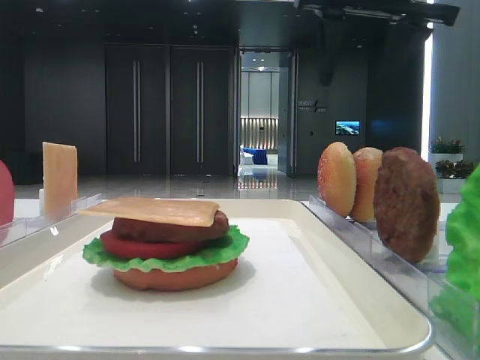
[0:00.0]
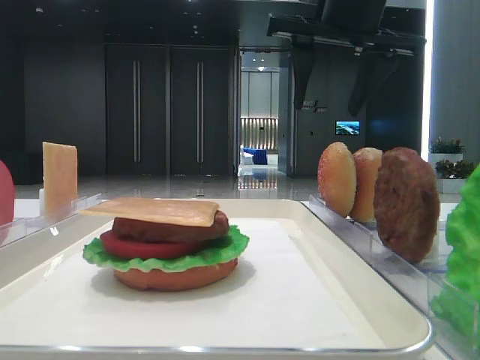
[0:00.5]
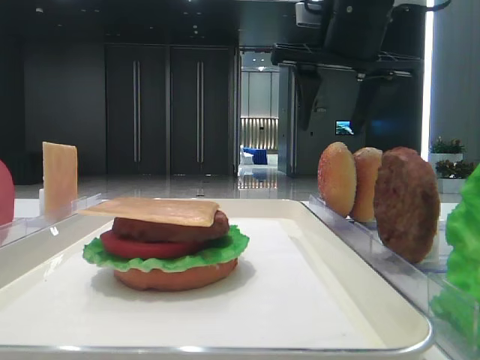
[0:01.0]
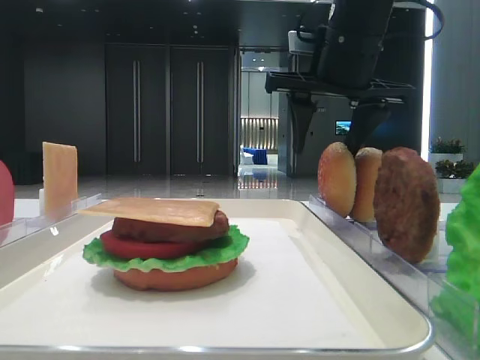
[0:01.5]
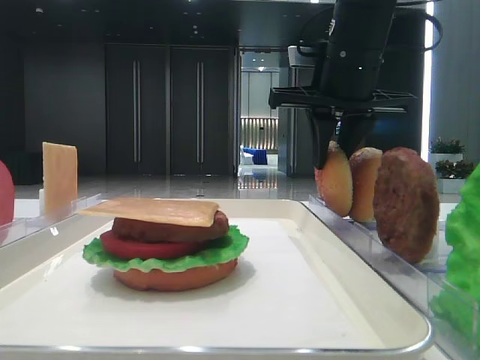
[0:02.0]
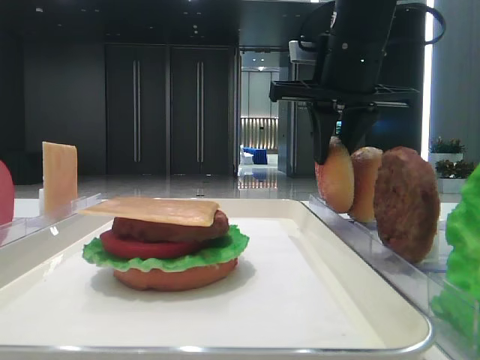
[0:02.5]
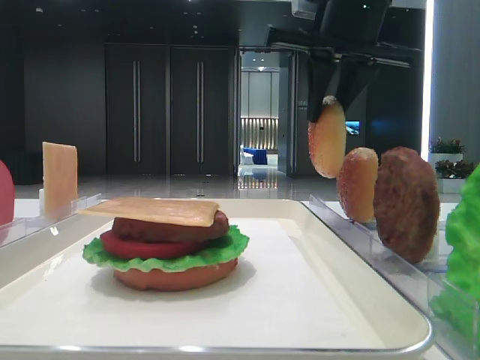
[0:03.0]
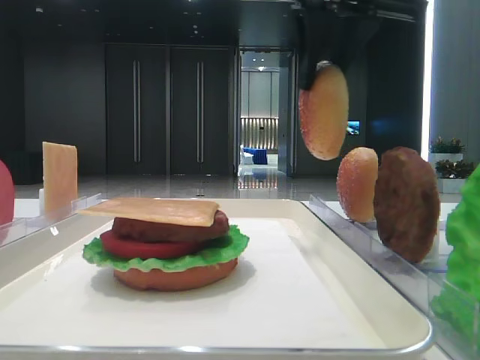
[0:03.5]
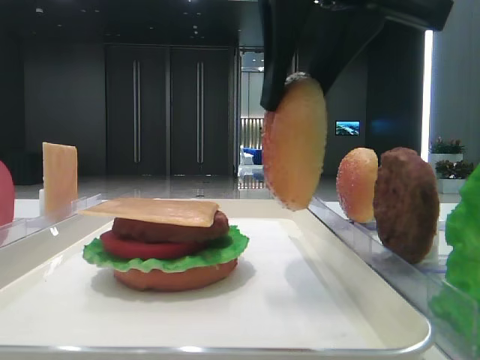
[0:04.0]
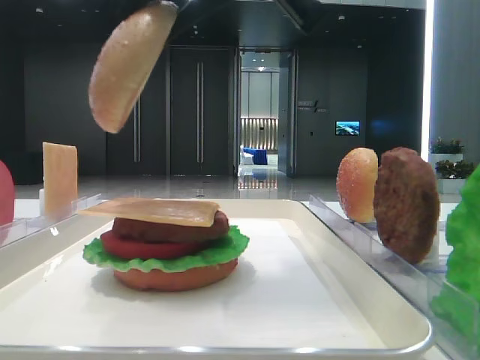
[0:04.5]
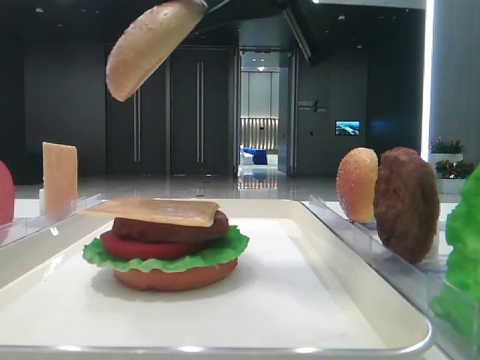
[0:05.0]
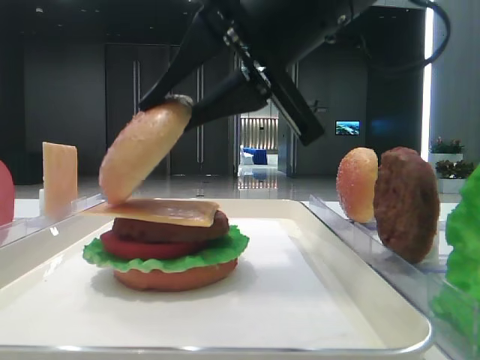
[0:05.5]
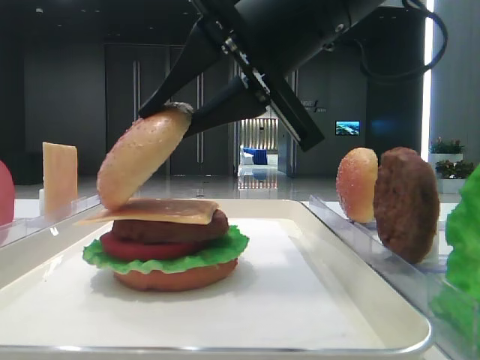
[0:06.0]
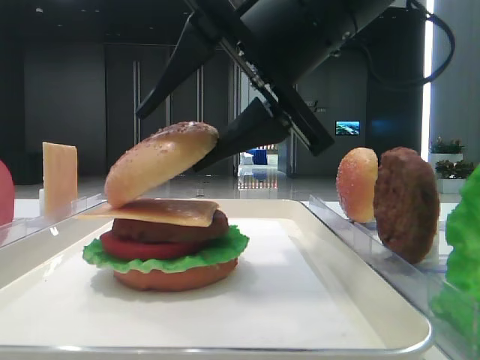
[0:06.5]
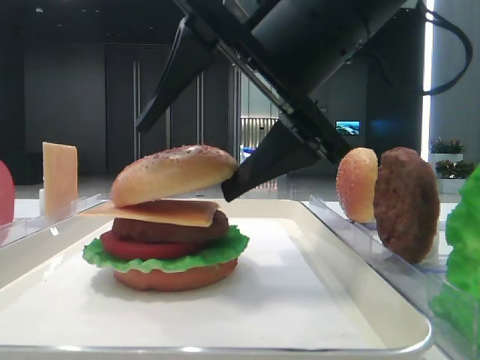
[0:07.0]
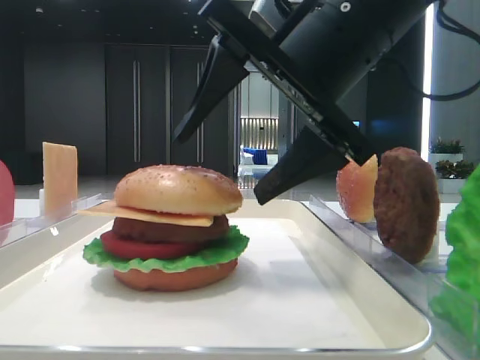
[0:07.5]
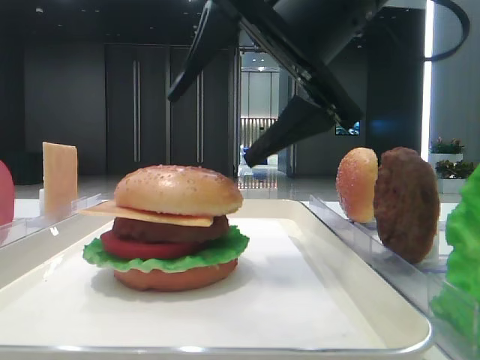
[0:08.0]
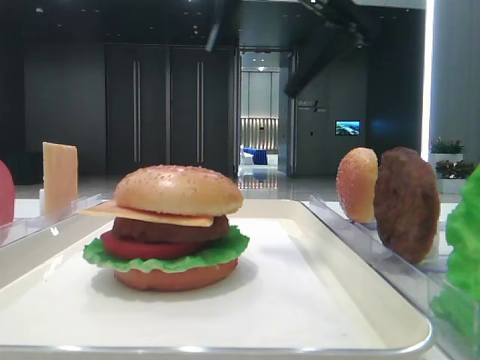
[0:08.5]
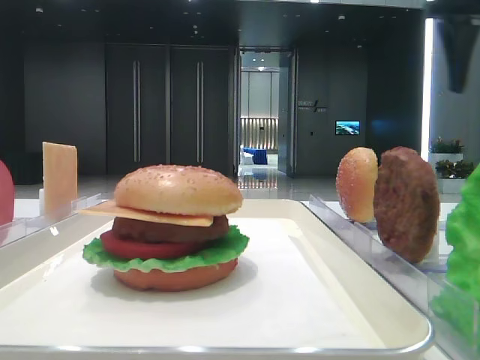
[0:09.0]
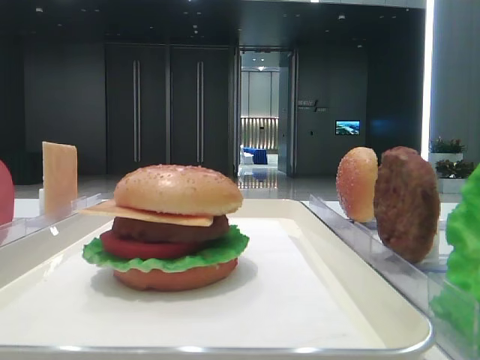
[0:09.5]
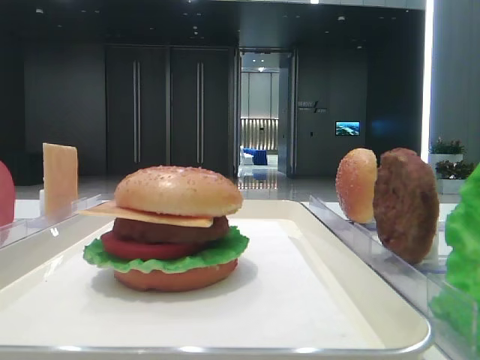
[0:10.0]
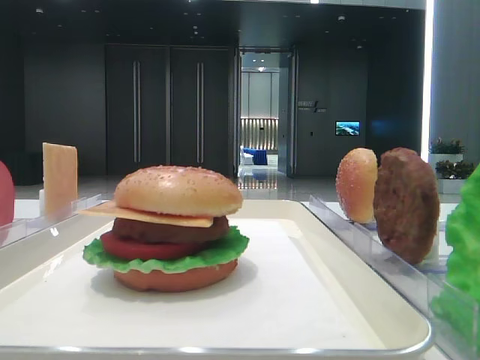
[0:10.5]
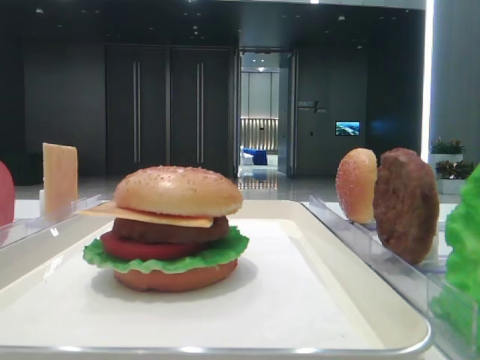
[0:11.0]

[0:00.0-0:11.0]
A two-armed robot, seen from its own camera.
Step, 0:00.0 to 0:02.0: Pick up the top bread slice with the right hand.
Step, 0:02.5 to 0:07.0: Place the top bread slice on the cheese with the right hand.
0:00.0 to 0:02.0: The right gripper shifts approximately 10 cm downward, and closes its fingers.
0:02.0 to 0:03.5: The right gripper travels upward and backward by about 10 cm.
0:03.5 to 0:05.5: The right gripper shifts approximately 10 cm downward and backward.
0:05.5 to 0:07.5: The right gripper opens.
0:07.5 to 0:09.0: The right gripper travels to the right, upward and forward by approximately 25 cm.
0:09.0 to 0:11.0: The right gripper is displaced backward by about 40 cm.

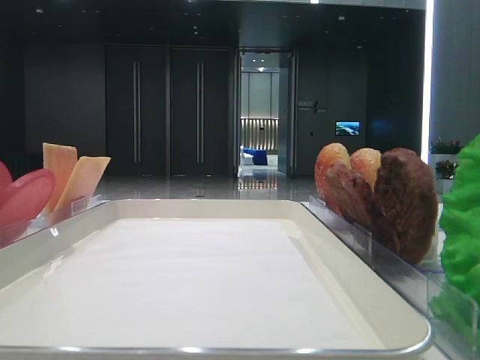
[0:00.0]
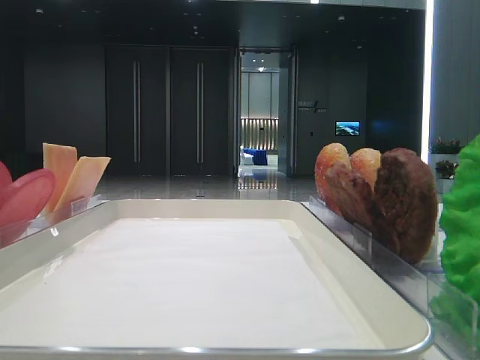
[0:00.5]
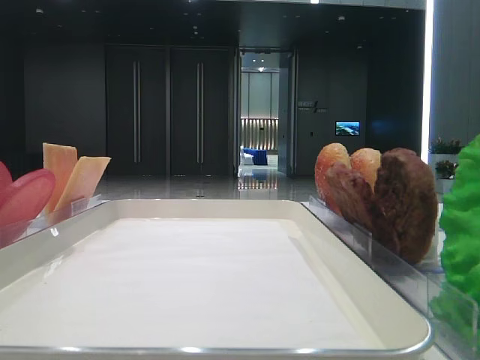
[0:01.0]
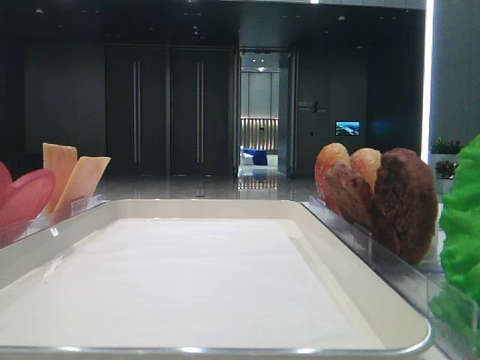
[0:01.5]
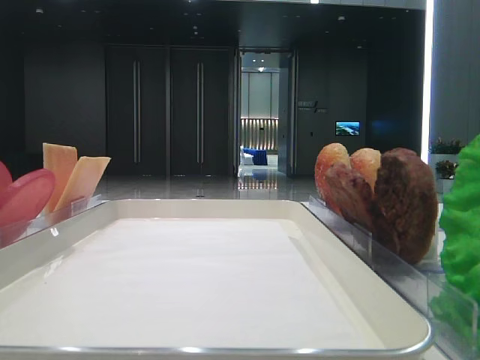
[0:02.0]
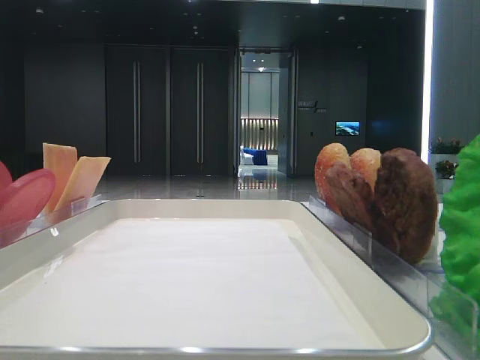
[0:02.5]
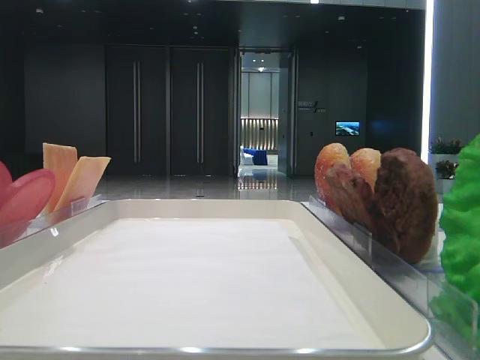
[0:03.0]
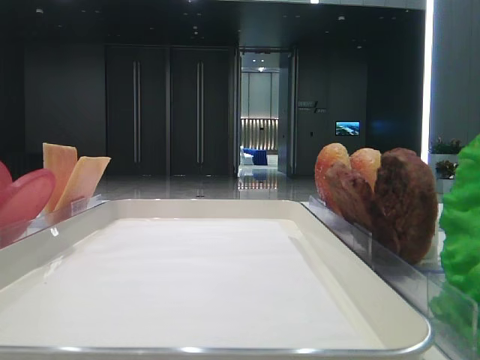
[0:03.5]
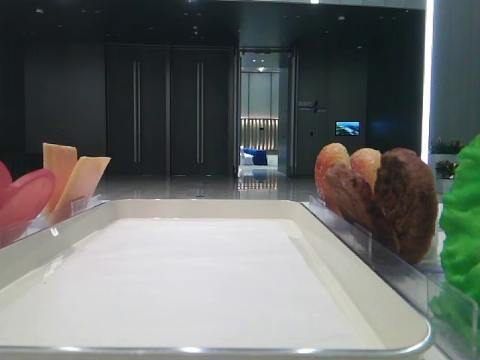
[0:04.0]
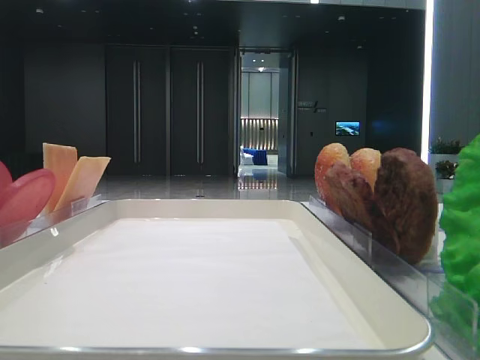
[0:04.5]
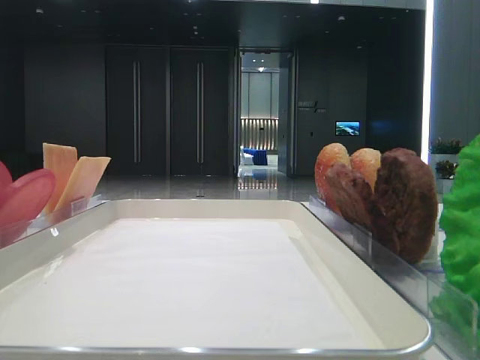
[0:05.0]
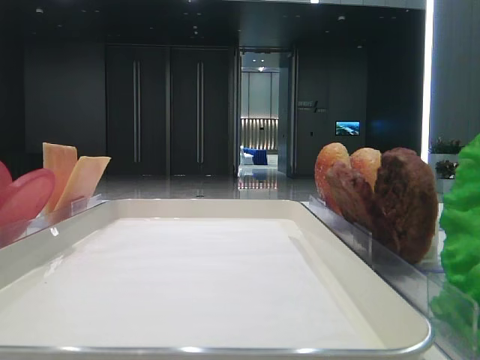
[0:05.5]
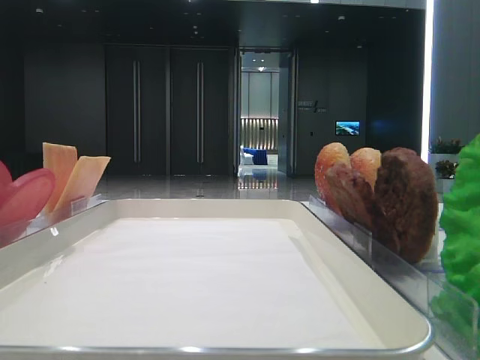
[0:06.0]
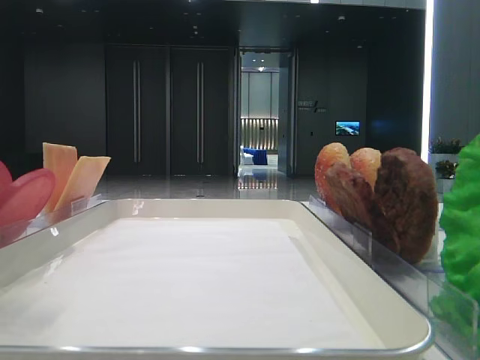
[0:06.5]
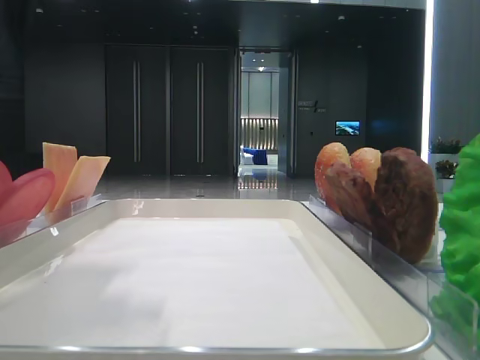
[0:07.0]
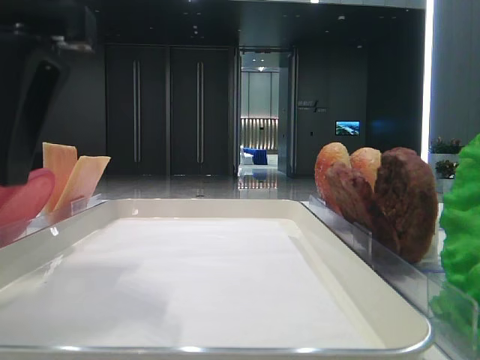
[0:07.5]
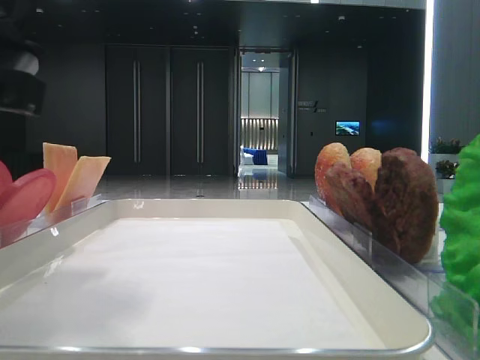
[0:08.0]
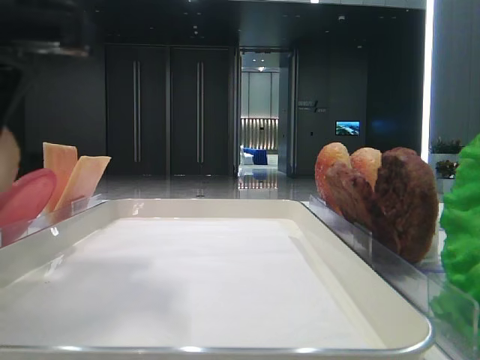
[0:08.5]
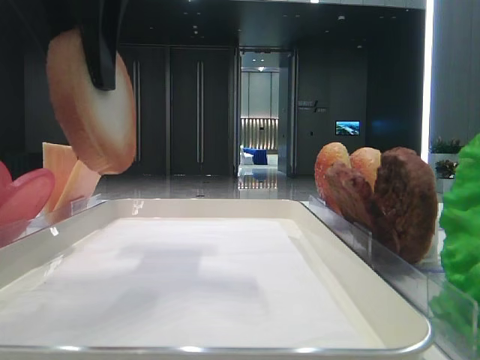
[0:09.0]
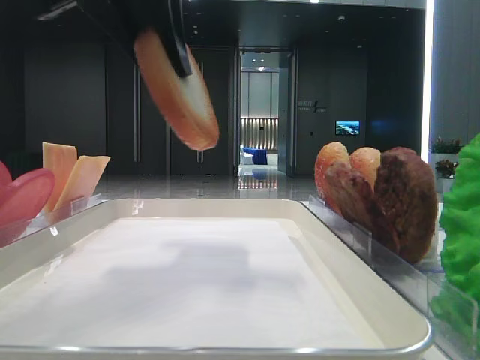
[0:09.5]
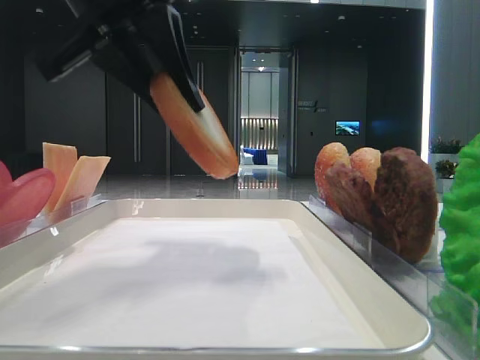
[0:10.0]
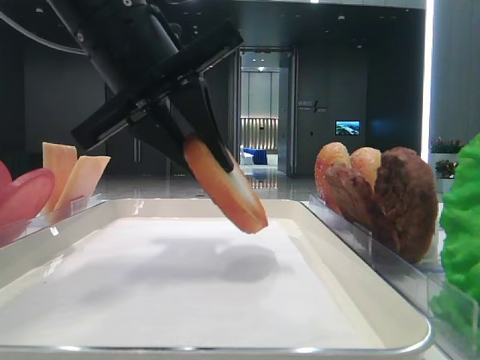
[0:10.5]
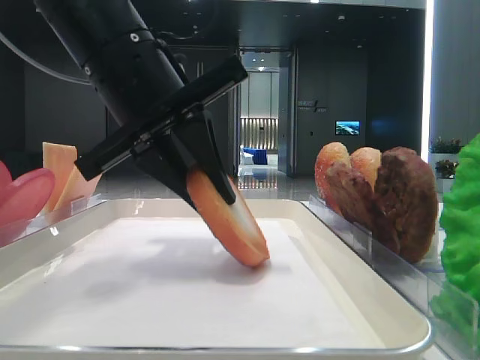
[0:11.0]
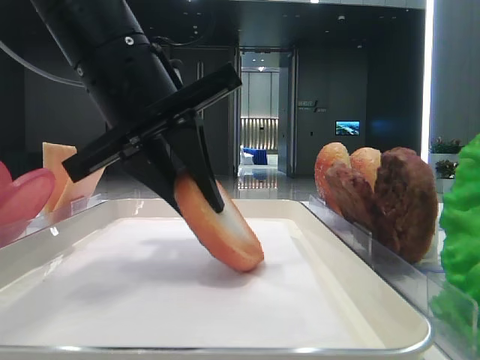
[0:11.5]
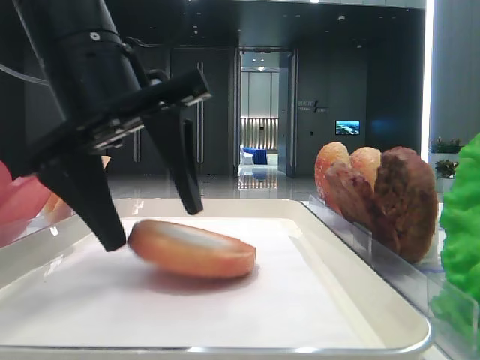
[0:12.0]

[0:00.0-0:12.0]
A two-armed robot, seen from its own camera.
Step, 0:07.0 to 0:12.0: Place the bread on the tray with the left hand.
0:02.0 to 0:04.0: Neither gripper changes place.
0:06.0 to 0:08.0: The left gripper travels to the right and downward by approximately 15 cm, and closes up.
0:08.0 to 0:10.0: The left gripper travels forward, upward and to the right by some 10 cm.
0:10.0 to 0:12.0: The left gripper heads downward, covering about 5 cm, and opens its fingers.

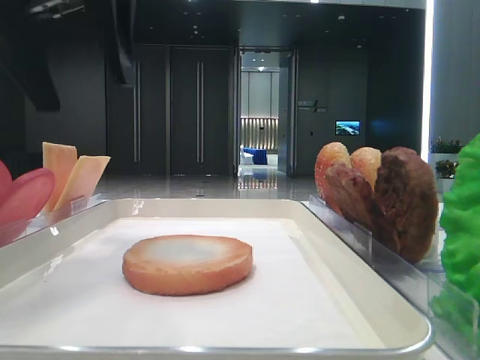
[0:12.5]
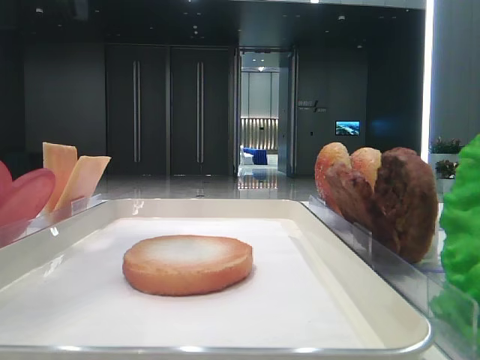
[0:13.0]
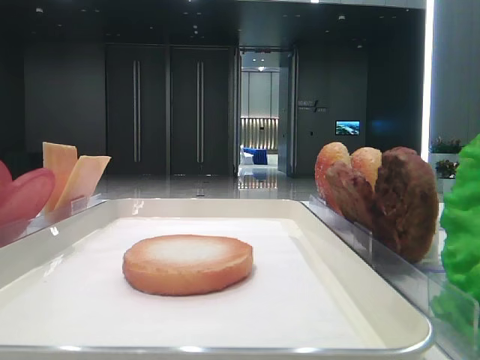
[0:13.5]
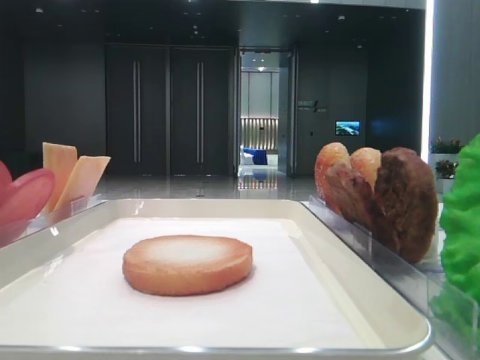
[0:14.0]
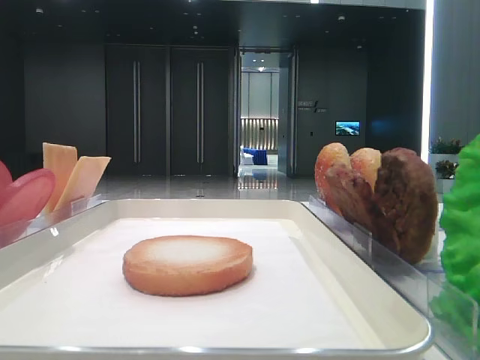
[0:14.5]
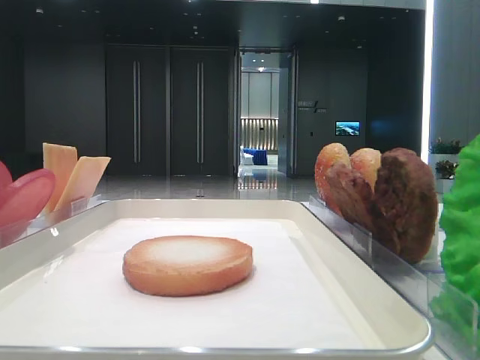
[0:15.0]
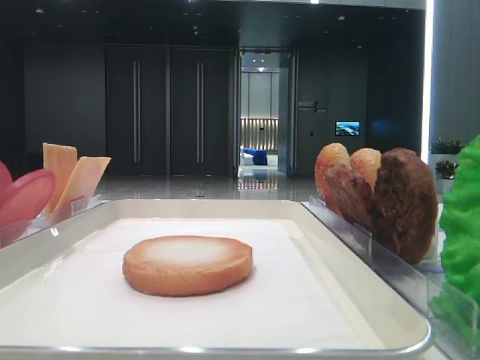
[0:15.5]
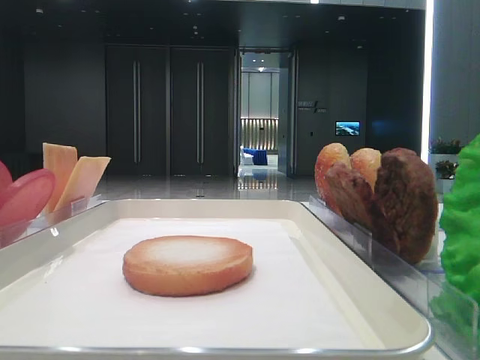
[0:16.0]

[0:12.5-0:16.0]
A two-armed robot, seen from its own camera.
0:12.5 to 0:14.5: The left gripper goes about 25 cm backward and to the left.
